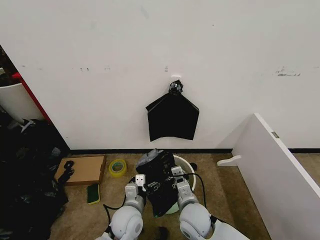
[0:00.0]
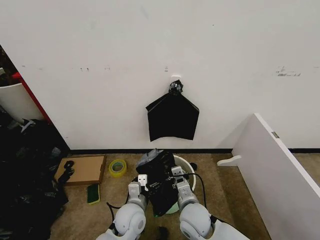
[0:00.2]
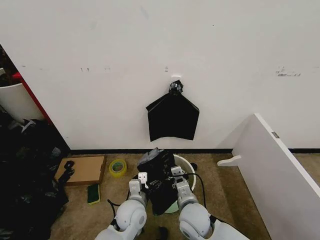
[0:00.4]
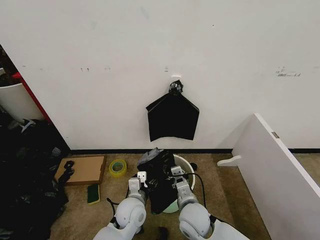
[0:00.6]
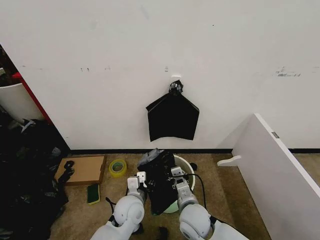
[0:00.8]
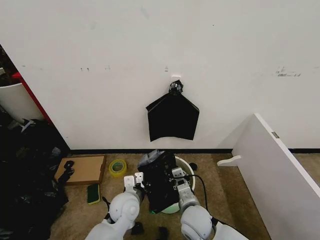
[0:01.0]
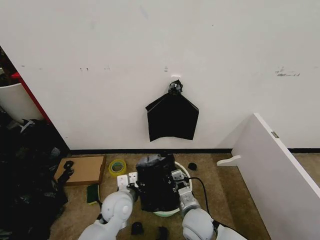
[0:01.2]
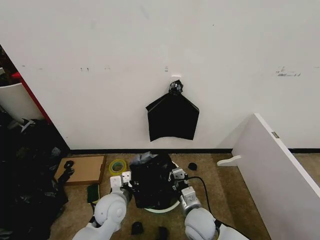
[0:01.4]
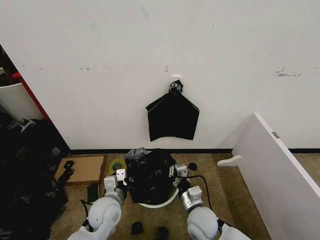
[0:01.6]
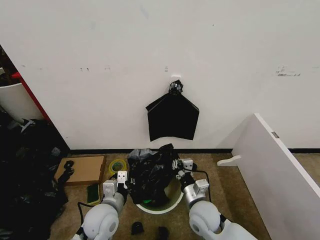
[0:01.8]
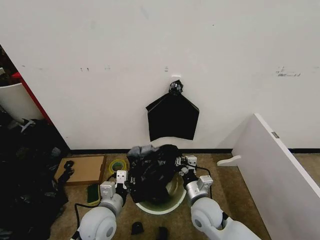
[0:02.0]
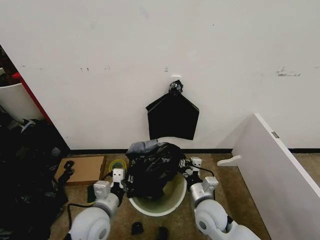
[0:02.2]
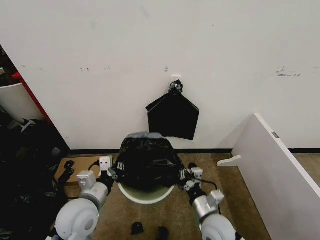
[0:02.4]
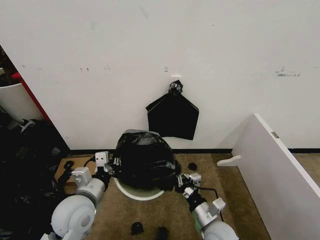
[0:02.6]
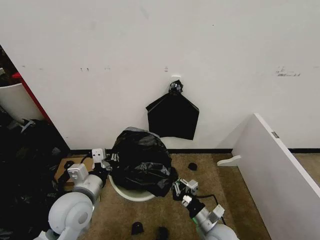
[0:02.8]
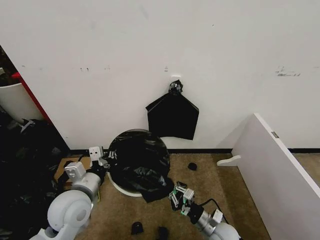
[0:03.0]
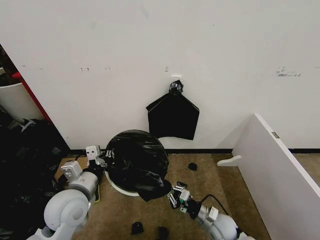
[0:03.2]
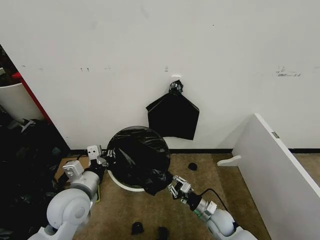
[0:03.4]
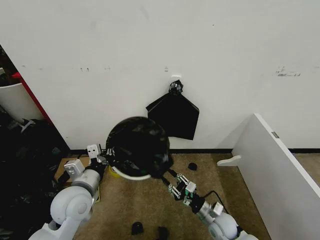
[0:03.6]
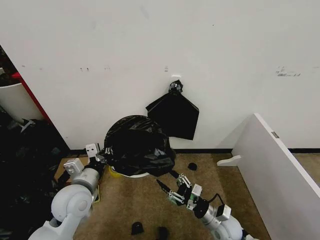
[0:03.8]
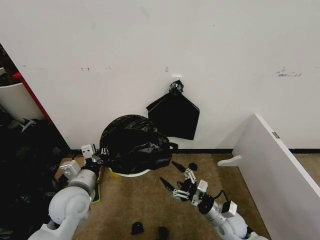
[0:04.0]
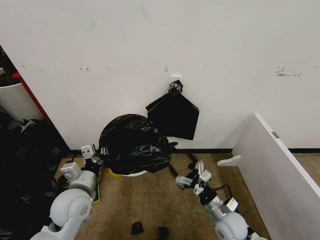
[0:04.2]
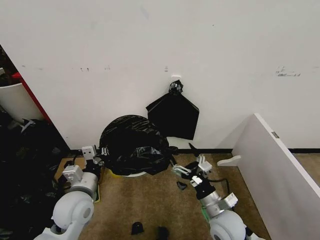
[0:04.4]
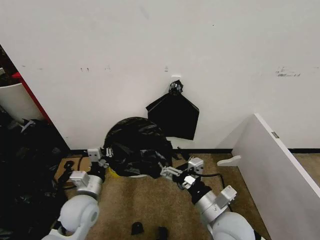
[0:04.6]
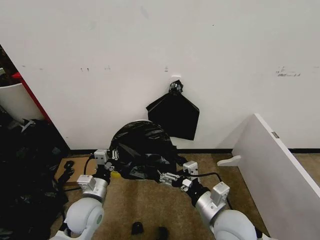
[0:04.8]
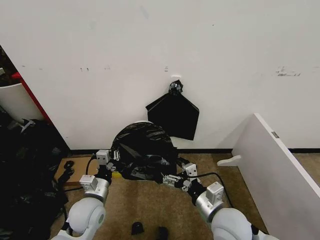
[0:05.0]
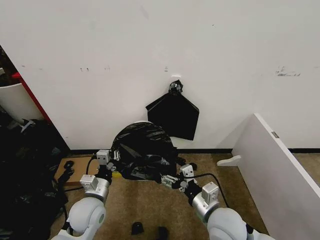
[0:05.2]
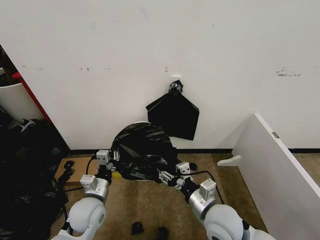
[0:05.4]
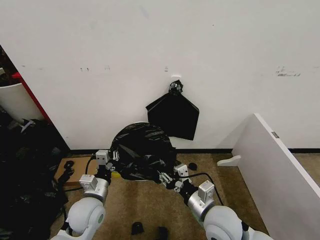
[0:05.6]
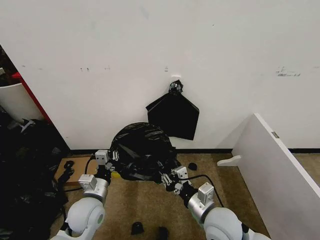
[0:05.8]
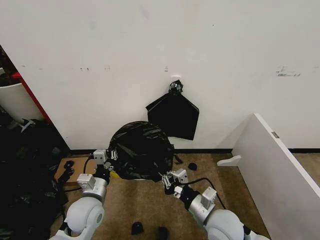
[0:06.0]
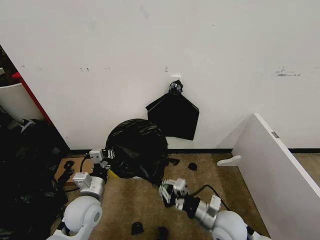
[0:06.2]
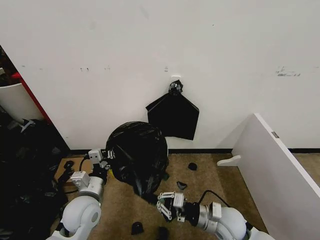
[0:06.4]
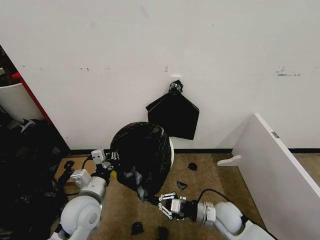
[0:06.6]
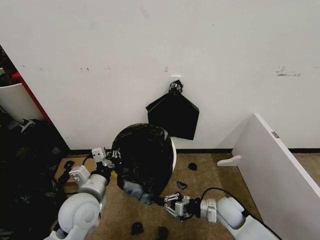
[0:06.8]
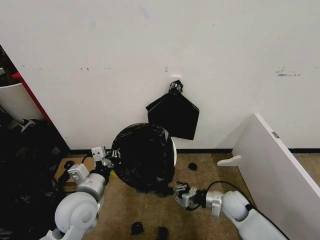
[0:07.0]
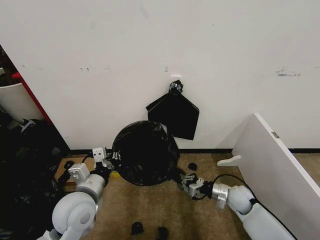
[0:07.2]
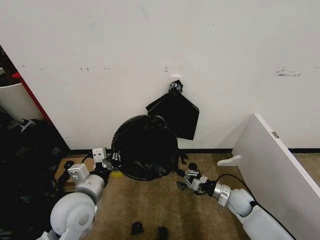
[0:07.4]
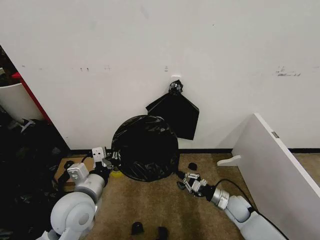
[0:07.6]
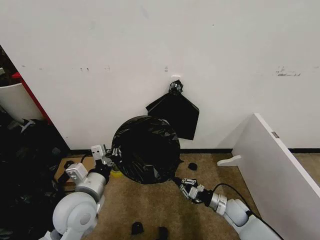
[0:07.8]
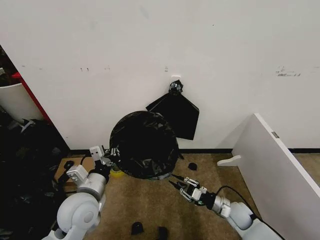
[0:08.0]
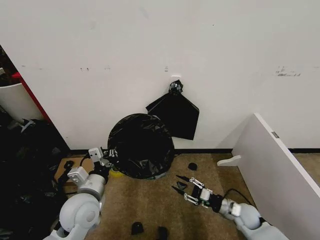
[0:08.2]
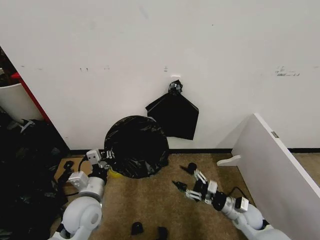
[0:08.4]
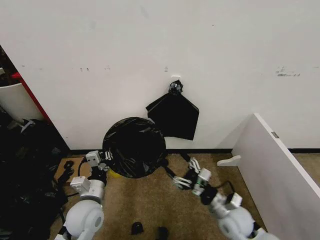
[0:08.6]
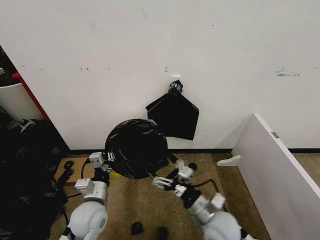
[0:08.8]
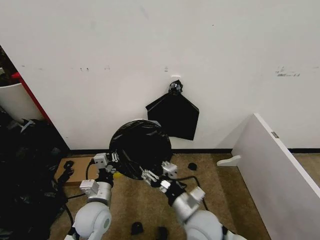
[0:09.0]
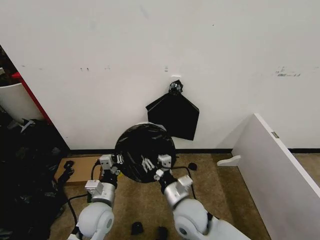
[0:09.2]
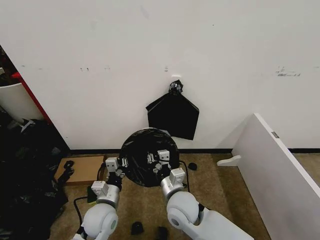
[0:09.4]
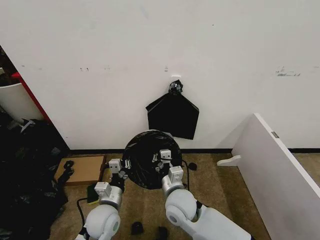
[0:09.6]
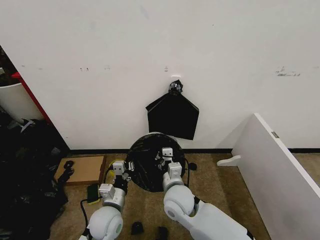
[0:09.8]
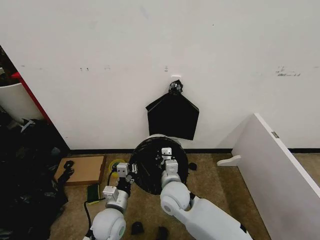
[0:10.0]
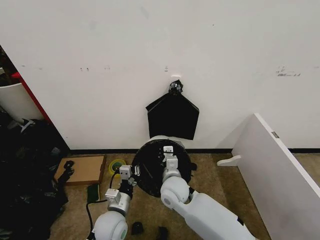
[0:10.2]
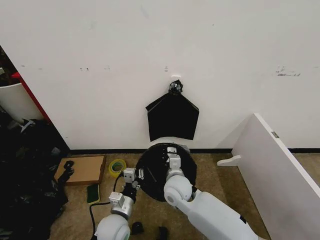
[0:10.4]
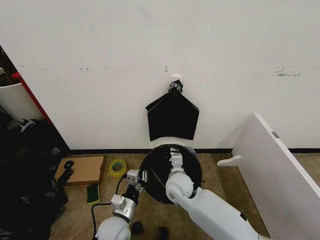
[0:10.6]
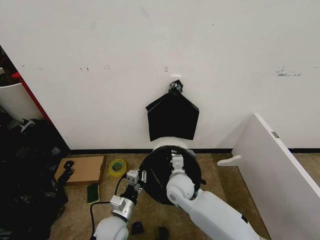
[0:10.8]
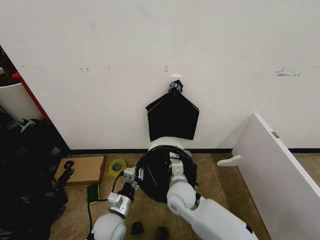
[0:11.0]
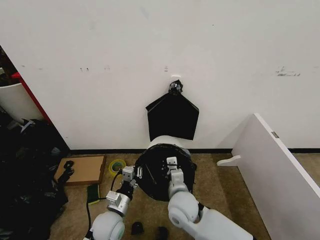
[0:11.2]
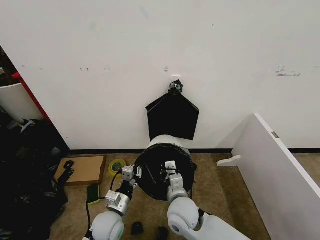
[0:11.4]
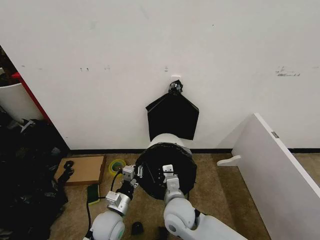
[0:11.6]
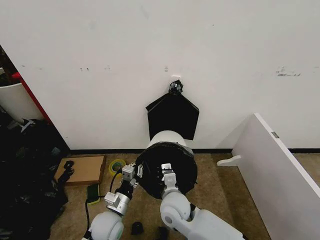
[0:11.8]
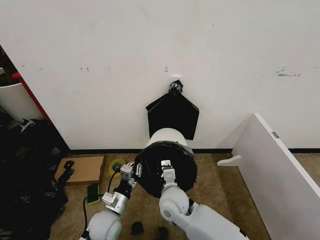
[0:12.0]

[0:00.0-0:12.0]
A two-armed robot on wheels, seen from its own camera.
Task of the whole recording: Place the garbage bag over the trash bin.
0:00.0 to 0:01.6: The left gripper travels to the left by roughly 5 cm, and closes its fingers.
0:01.6 to 0:03.0: The right gripper is displaced to the right and downward by roughly 10 cm. The left gripper is displaced upward and to the left by some 15 cm.
0:03.0 to 0:04.4: The right gripper moves upward, some 10 cm, and opens.
0:04.4 to 0:06.0: The right gripper closes.
0:06.0 to 0:07.6: The left gripper goes about 10 cm upward, while the right gripper moves downward, to the right and forward, approximately 25 cm.
0:07.6 to 0:09.0: The left gripper travels downward by approximately 10 cm, while the right gripper heads to the left, upward and backward, covering about 30 cm, and opens.
0:09.0 to 0:10.4: The left gripper heads downward and to the right, covering about 5 cm. Meanwhile the right gripper shifts approximately 15 cm forward and to the left, and closes.

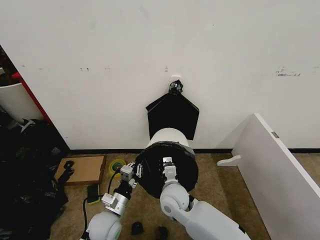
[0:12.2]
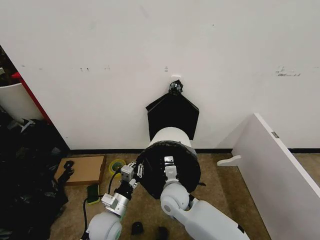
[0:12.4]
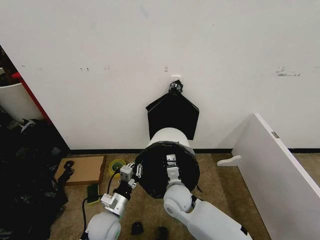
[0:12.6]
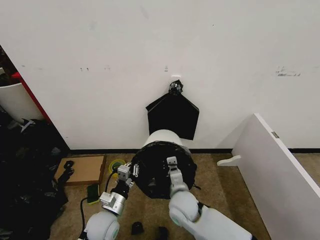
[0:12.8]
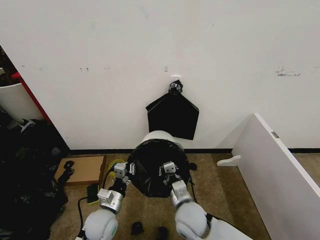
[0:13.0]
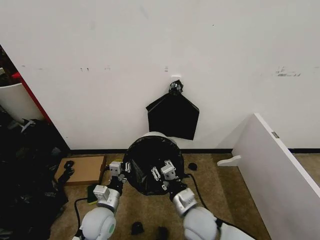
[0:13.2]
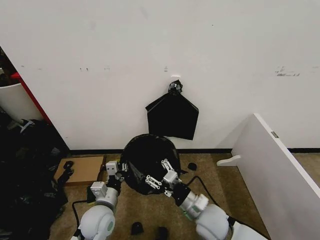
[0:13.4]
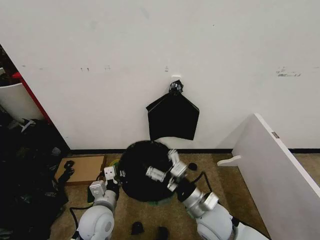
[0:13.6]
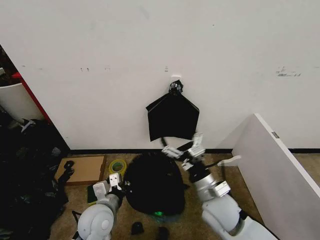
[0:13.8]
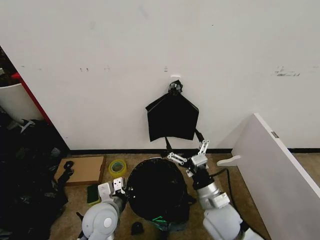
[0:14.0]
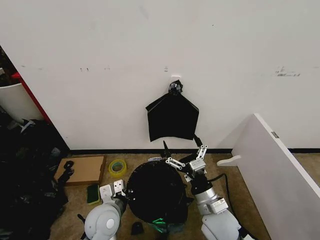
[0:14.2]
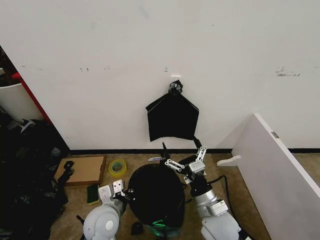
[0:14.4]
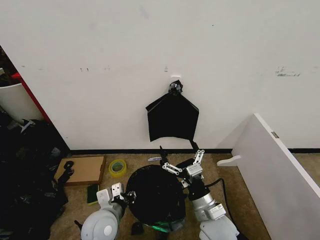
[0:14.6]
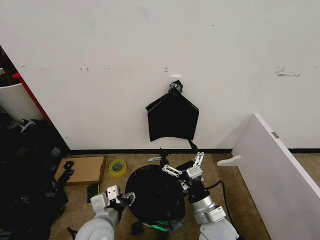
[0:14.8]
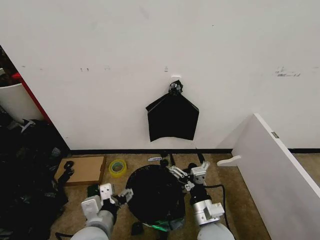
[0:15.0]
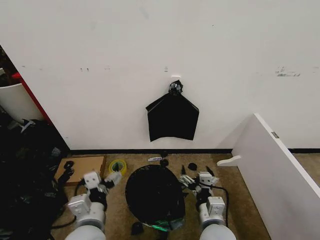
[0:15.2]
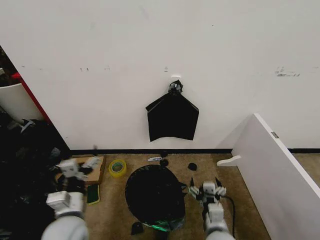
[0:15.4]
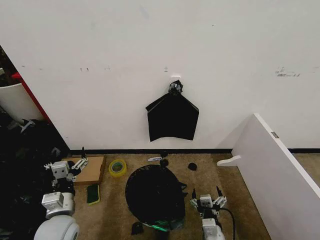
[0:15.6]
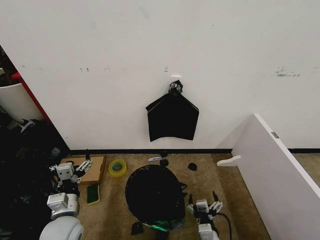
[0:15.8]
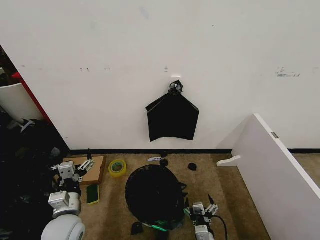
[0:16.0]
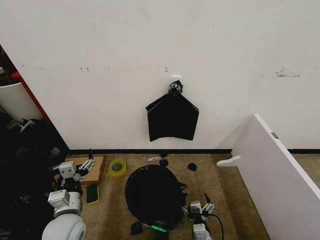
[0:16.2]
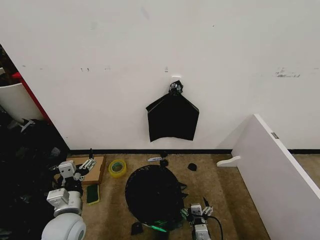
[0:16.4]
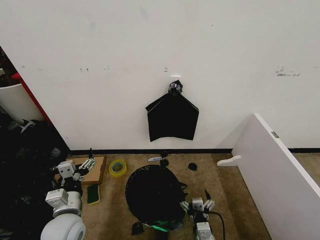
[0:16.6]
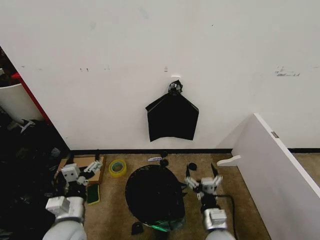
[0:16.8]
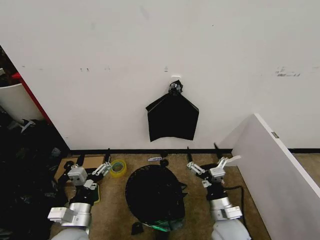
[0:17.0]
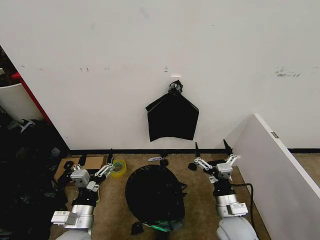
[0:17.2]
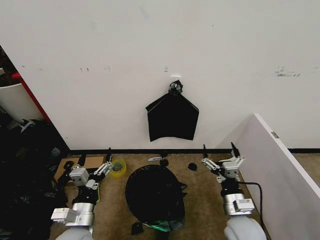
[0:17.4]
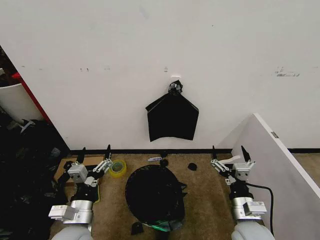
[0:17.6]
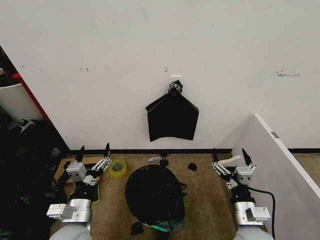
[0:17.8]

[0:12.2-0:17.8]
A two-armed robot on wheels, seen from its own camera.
Task of the whole recording: Place the garbage bag over the trash bin.
0:12.2 to 0:13.6: The right gripper travels to the right and backward by about 15 cm, and opens its fingers; the left gripper heads upward, covering roughly 5 cm.
0:13.6 to 0:15.0: The right gripper heads backward, covering about 5 cm; the left gripper is displaced backward and upward by roughly 10 cm, and opens.
0:15.0 to 0:16.4: The right gripper travels downward by some 15 cm. Meanwhile the left gripper goes roughly 10 cm to the left.
0:16.4 to 0:17.8: The right gripper is displaced upward, to the right and forward by roughly 20 cm.

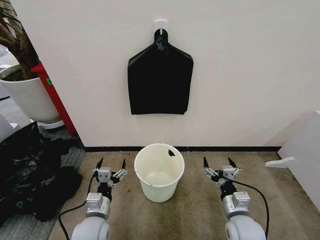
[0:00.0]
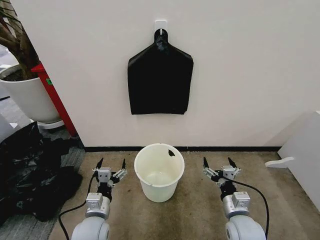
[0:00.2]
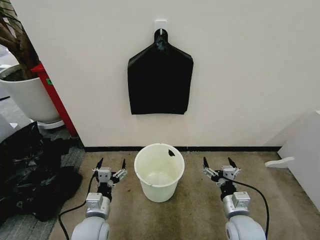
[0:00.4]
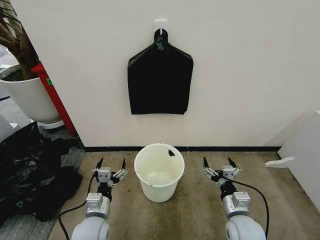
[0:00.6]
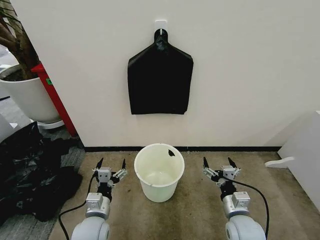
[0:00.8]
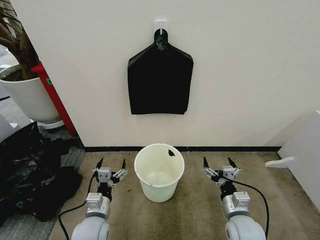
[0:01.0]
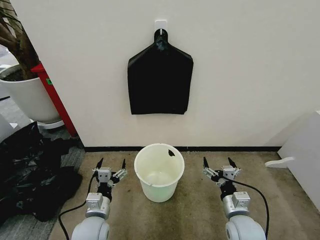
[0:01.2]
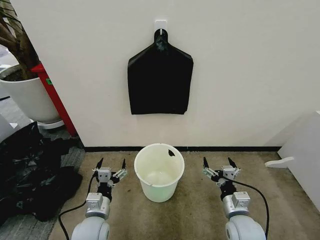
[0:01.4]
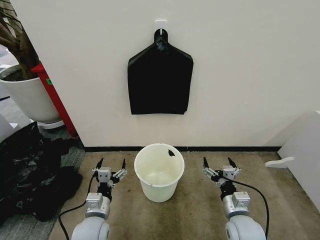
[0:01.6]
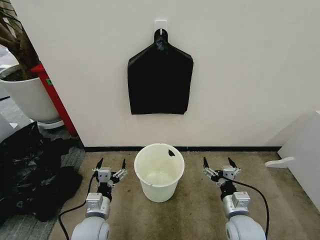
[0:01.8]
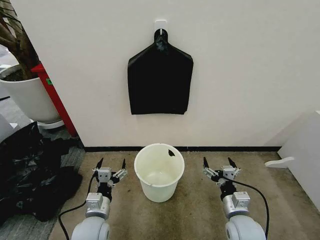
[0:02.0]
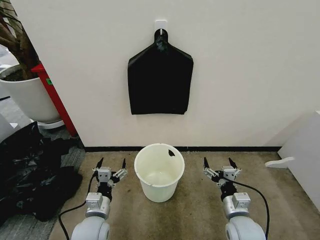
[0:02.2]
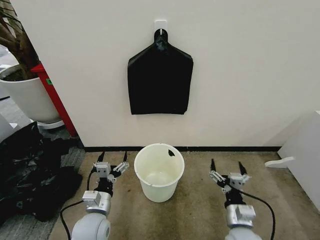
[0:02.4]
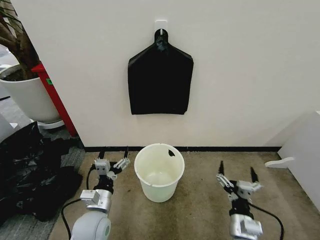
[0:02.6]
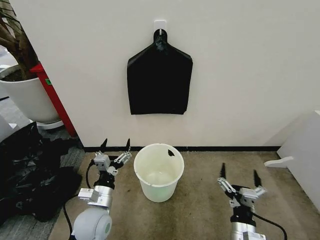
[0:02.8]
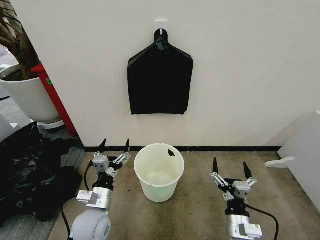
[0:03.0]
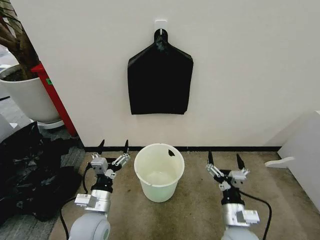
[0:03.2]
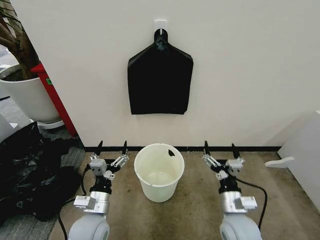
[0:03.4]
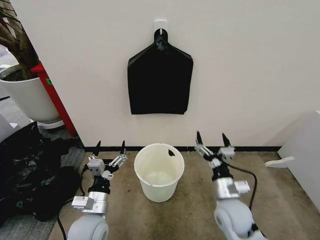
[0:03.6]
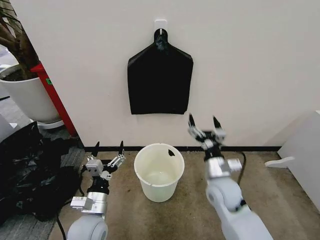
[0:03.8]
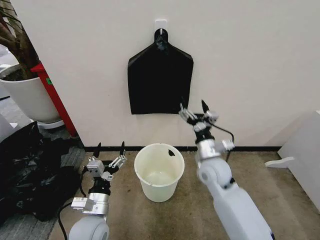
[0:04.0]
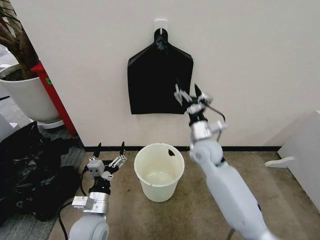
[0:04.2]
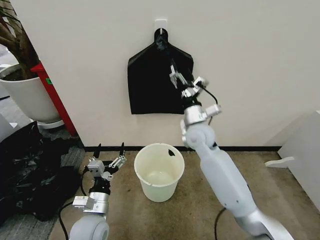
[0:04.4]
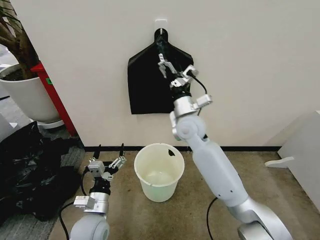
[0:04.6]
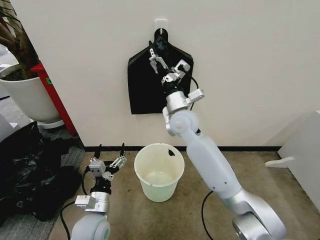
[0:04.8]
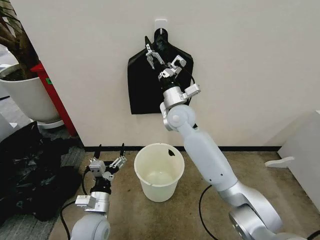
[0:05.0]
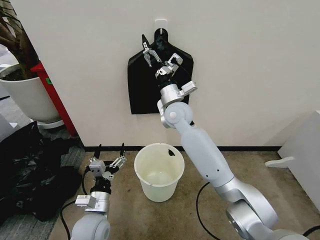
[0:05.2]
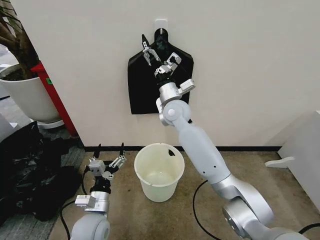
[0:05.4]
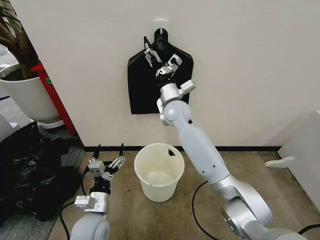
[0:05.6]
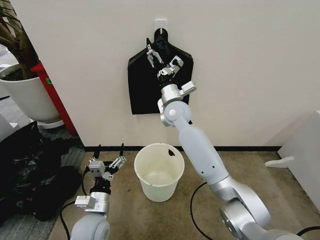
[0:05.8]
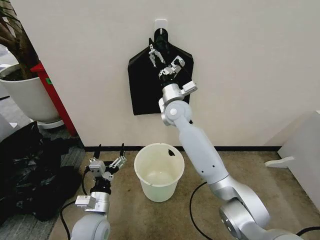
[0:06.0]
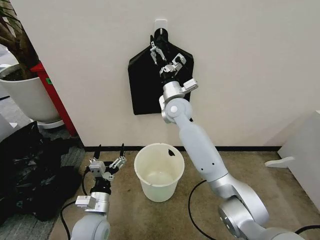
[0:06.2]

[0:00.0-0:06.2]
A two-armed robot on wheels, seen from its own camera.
Task of the whole recording: Place the garbage bag over the trash bin.
0:03.2 to 0:04.6: The right gripper is displaced forward, upward and to the left by some 35 cm.
0:04.6 to 0:06.2: The right gripper shifts some 5 cm forward.
